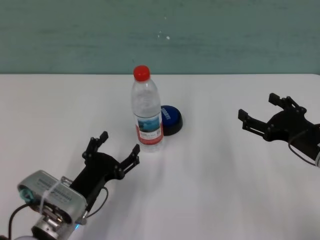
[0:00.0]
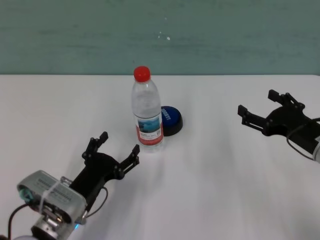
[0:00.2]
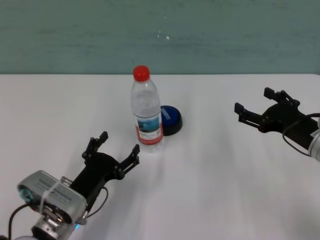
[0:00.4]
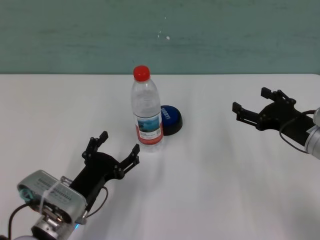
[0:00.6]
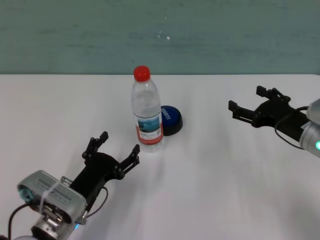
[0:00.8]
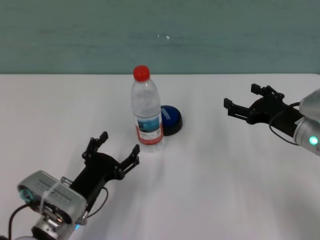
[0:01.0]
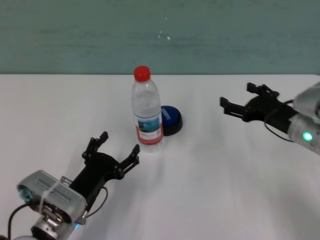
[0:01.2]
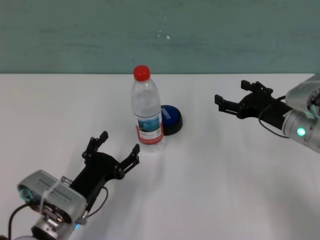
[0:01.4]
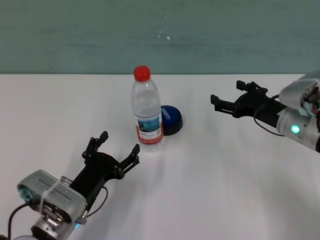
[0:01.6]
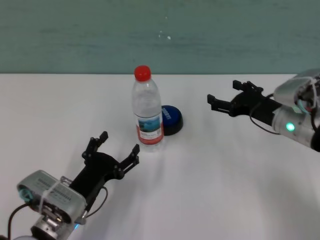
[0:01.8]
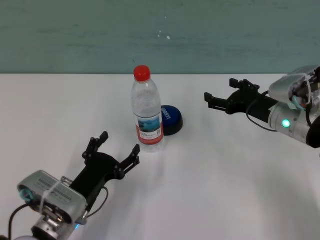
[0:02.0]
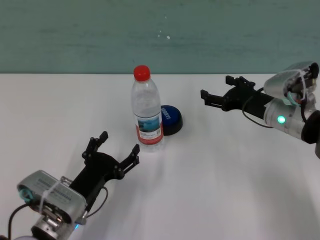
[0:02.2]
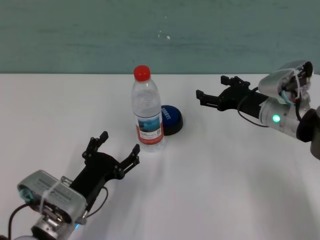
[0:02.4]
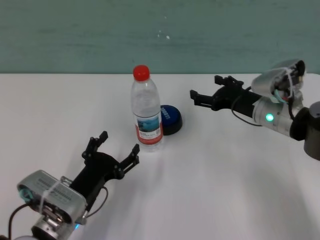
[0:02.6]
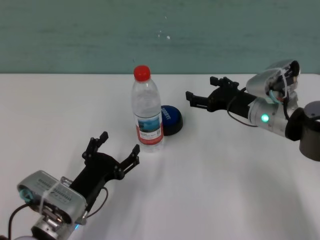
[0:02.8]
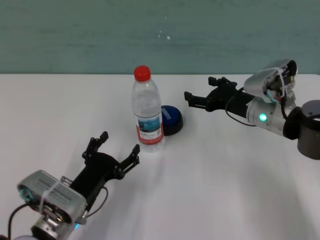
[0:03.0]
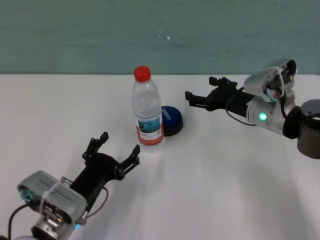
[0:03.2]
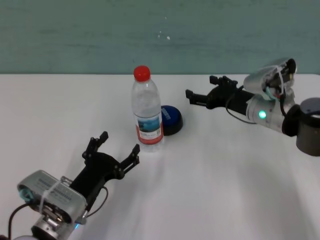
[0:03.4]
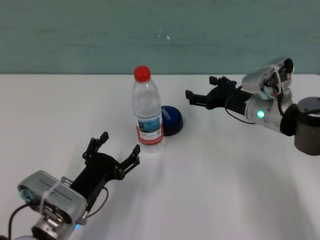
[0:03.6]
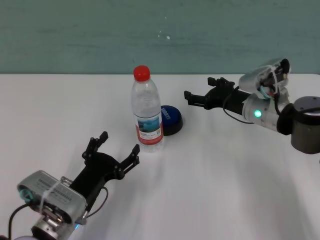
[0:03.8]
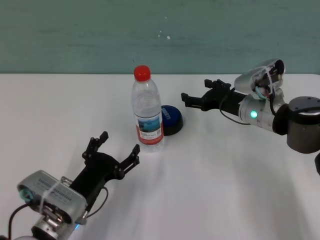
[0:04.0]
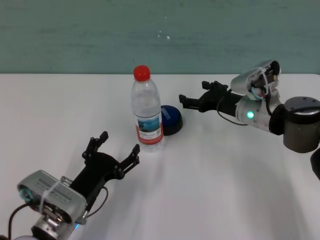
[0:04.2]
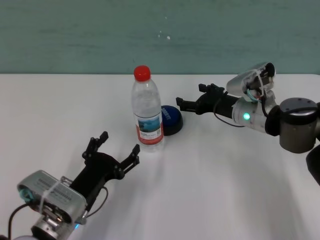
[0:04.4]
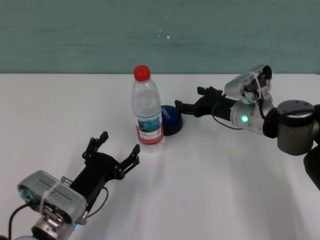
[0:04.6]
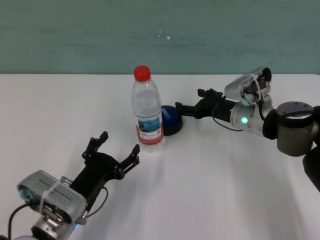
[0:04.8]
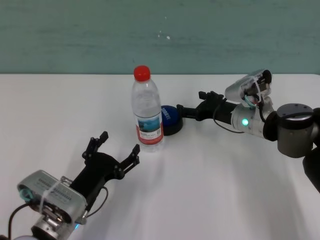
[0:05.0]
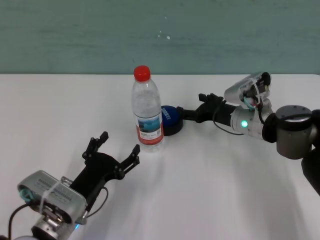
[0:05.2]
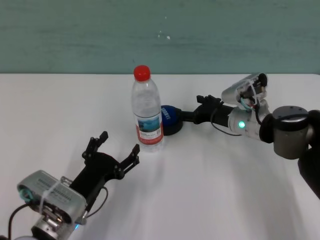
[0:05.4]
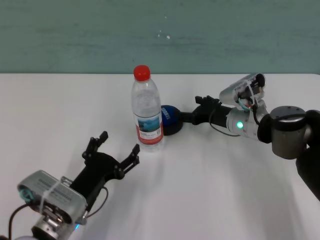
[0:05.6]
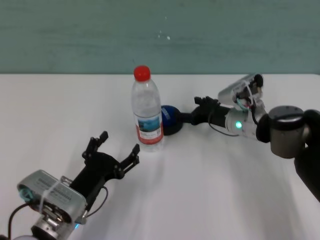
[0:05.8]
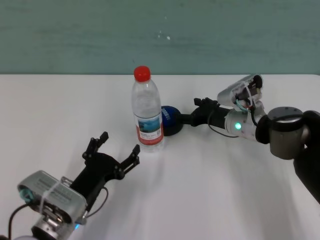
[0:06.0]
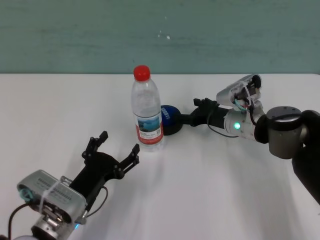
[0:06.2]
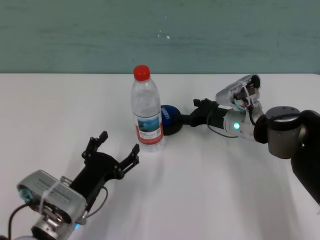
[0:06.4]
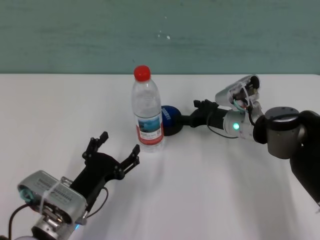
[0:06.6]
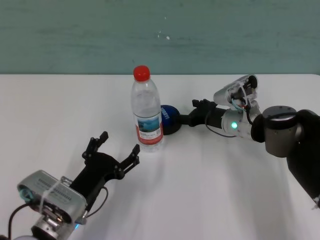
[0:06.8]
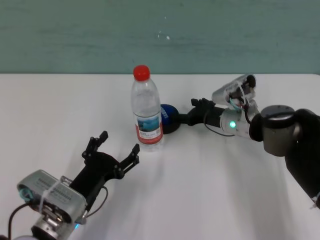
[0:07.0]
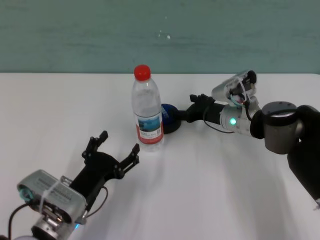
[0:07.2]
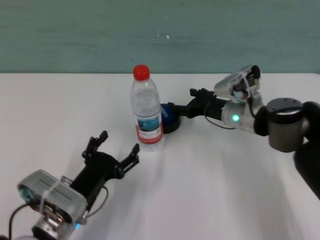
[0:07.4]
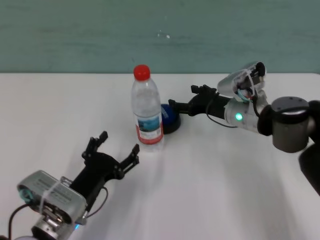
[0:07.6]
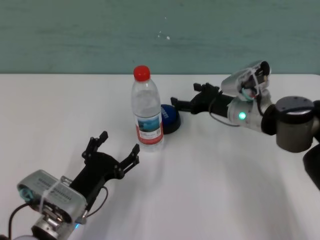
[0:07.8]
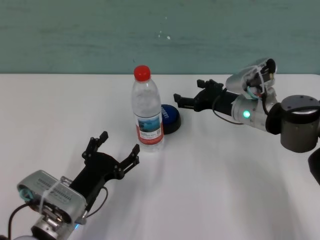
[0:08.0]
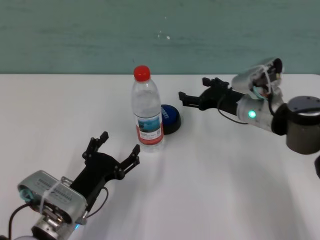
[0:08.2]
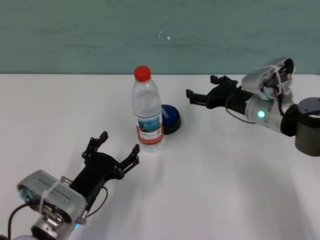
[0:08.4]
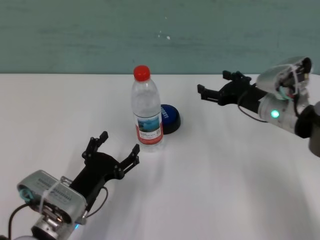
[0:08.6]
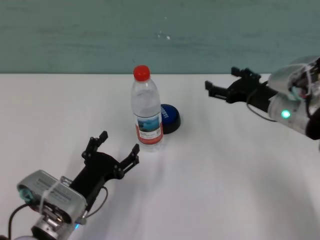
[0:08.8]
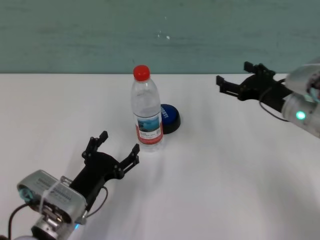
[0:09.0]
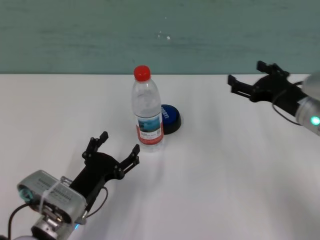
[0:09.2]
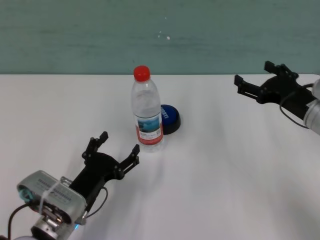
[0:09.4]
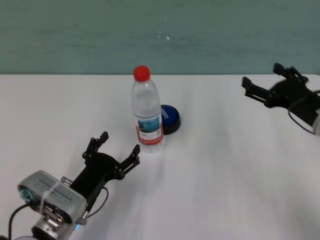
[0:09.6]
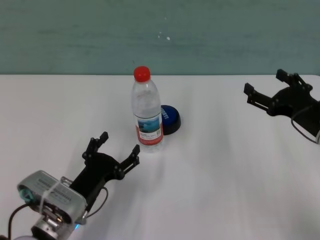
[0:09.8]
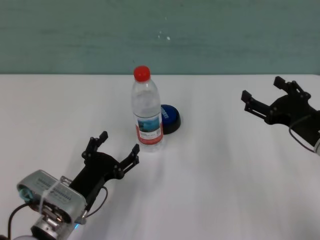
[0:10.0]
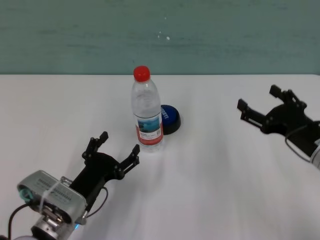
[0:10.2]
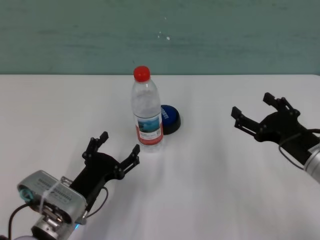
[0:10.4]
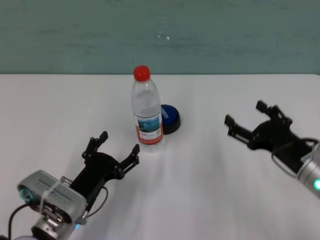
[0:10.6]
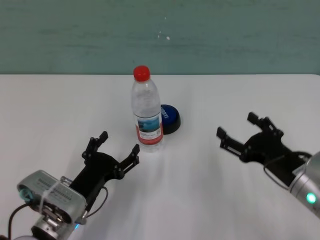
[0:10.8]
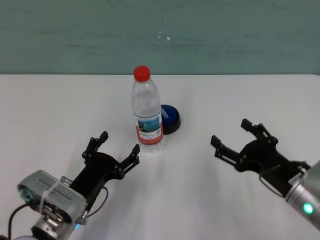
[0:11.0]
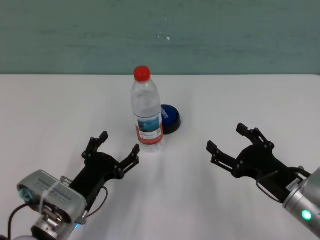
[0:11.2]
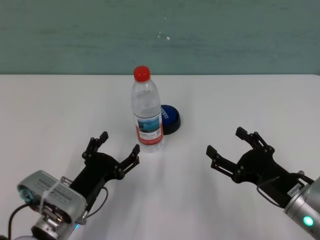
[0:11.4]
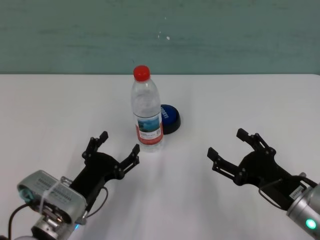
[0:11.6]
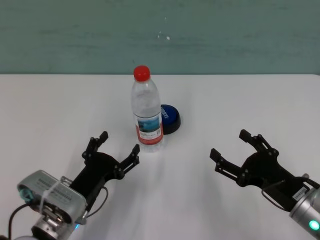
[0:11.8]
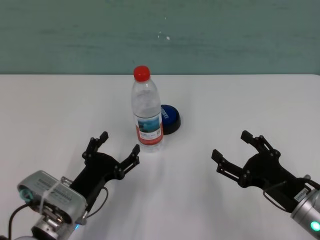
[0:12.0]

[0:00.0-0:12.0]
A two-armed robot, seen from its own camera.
Task of the whole recording: after avoiding the water bottle on the table, press the button.
Step, 0:00.0 to 0:07.2: Press the button blocked by the bottle with right gripper.
